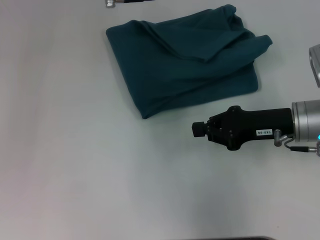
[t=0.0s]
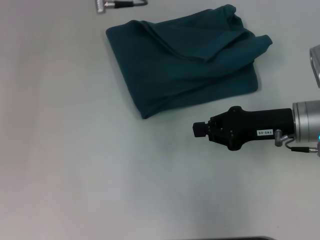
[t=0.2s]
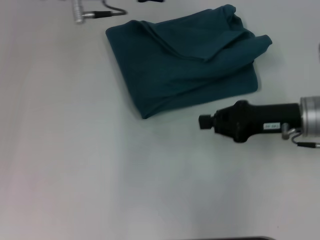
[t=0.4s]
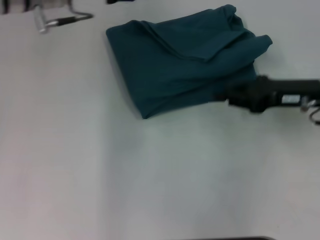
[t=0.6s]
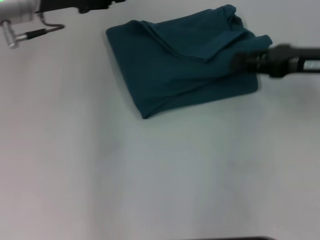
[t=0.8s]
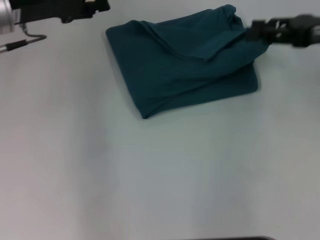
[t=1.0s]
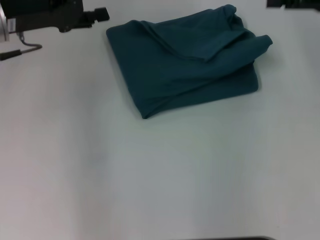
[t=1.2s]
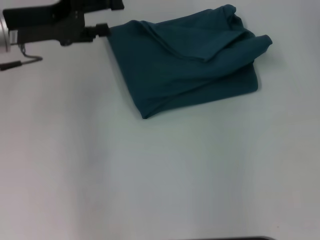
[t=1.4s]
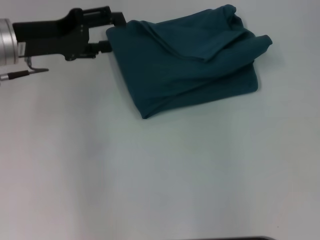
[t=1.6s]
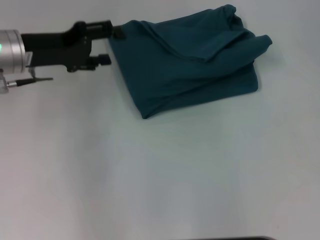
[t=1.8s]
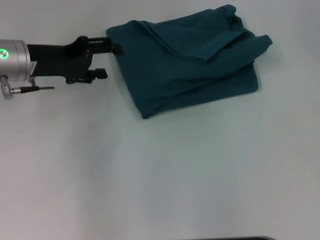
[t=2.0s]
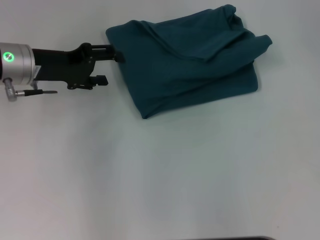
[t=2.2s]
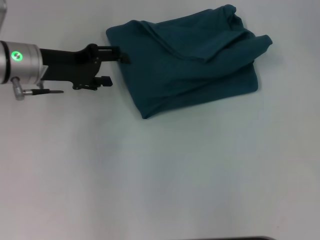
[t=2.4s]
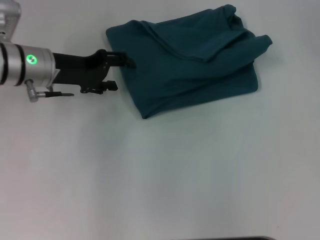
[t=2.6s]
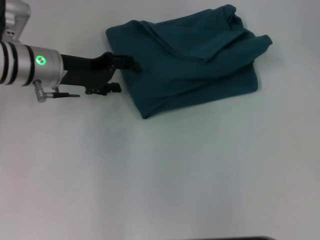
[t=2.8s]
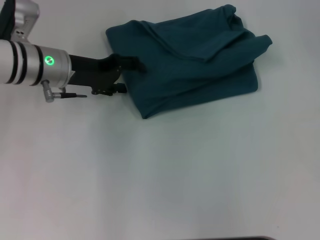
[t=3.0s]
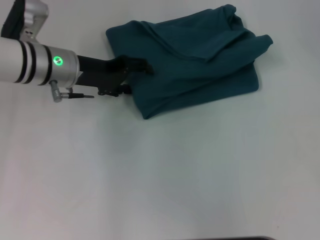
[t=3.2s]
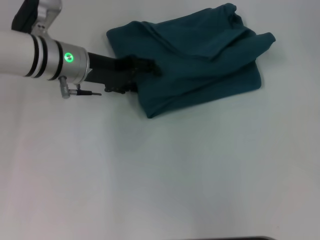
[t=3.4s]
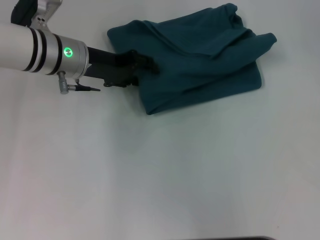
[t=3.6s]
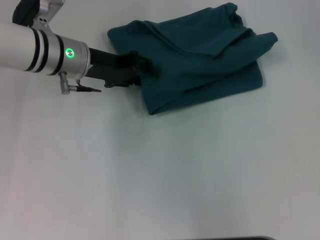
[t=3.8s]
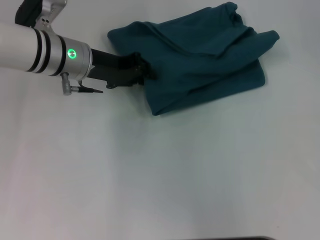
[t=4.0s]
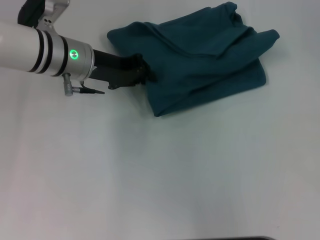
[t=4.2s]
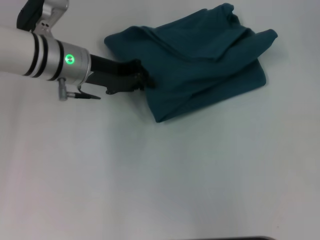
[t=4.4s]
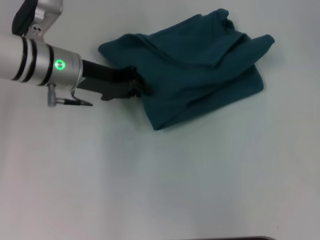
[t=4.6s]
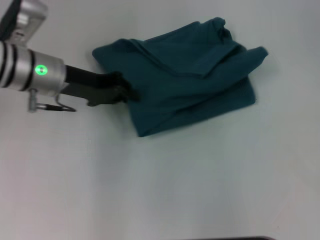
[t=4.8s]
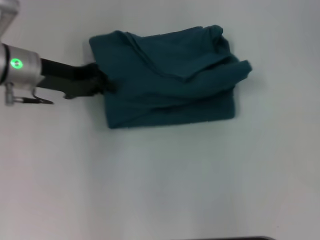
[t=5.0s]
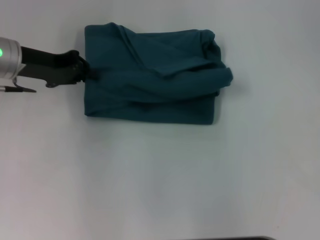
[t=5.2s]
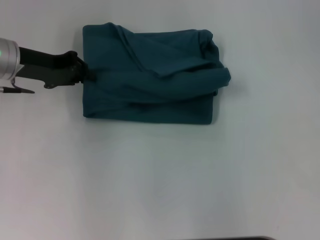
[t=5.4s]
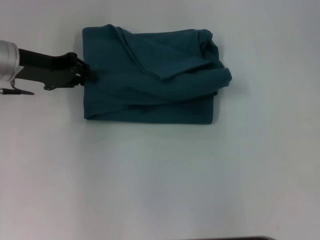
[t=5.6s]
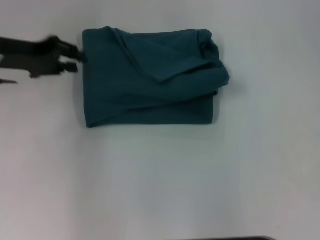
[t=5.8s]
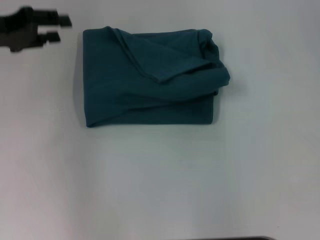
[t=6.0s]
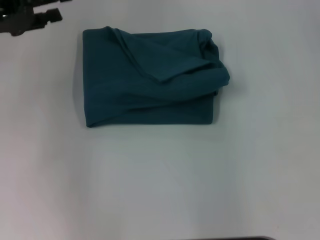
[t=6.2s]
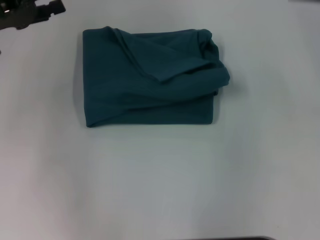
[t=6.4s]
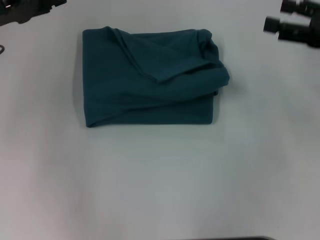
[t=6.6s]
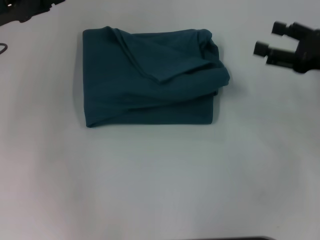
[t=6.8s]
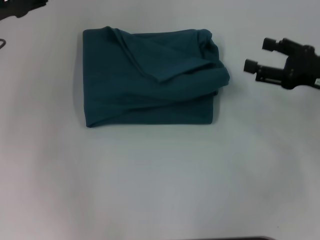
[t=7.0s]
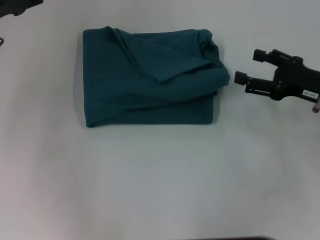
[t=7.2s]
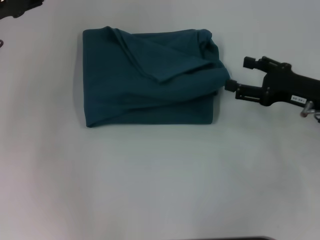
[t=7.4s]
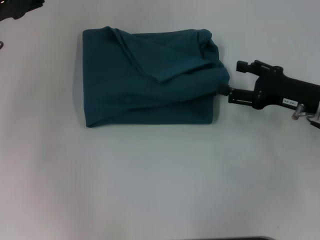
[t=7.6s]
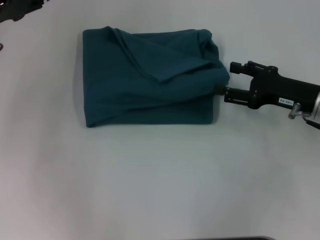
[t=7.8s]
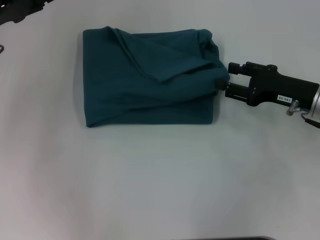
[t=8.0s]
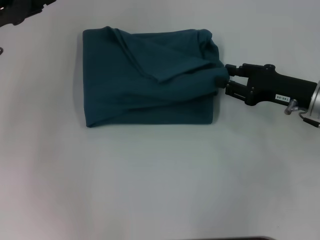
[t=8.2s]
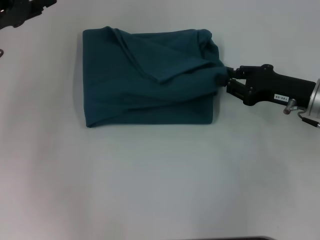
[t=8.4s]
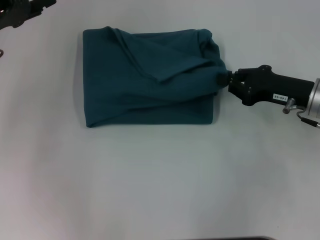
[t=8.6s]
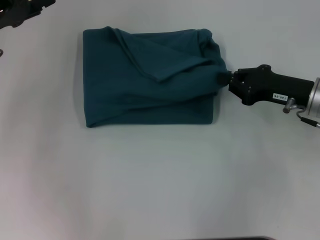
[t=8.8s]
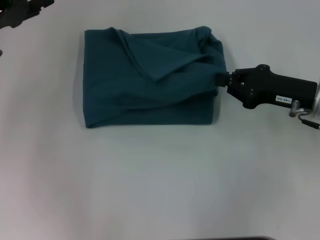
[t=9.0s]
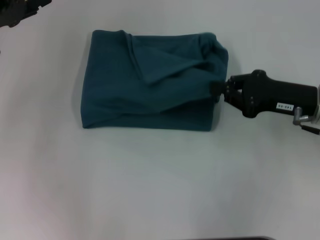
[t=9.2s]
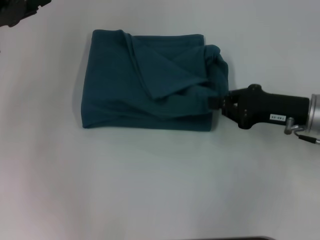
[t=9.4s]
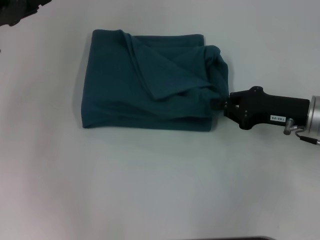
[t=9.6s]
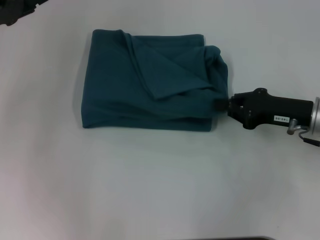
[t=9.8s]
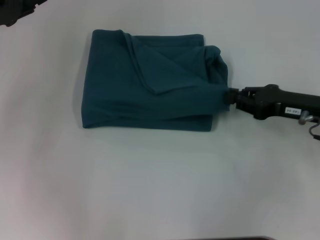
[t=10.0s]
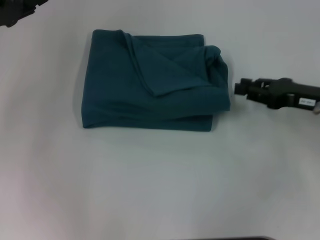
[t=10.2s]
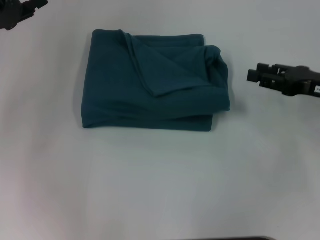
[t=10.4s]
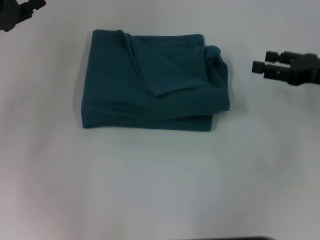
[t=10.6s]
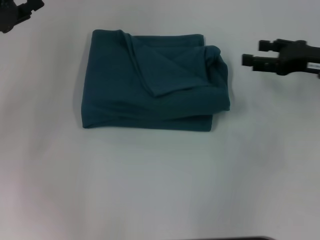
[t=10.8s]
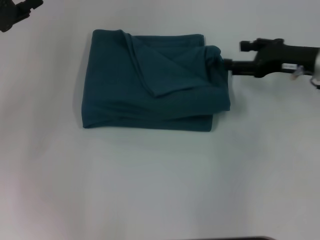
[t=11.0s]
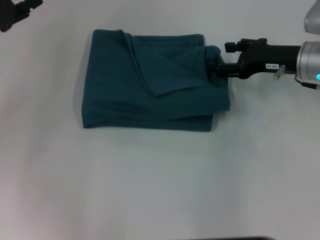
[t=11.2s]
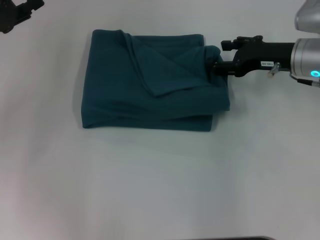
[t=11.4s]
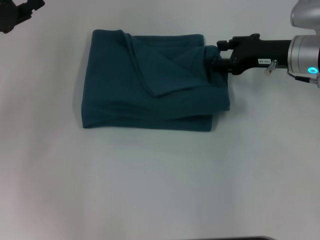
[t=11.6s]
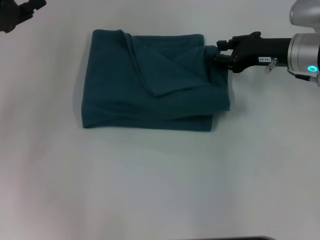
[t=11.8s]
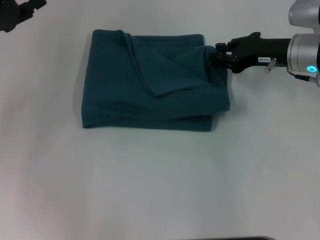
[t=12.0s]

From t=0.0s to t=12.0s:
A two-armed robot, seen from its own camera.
From t=0.0s to t=1.6s: The right gripper goes approximately 25 cm upward, to the right and forward, and opens, while the left gripper heads to the left and downward, covering approximately 15 cm.
From t=1.6s to t=3.0s: The left gripper moves downward and to the right, about 5 cm.
From t=3.0s to t=4.4s: The left gripper closes.
From t=4.4s to t=6.0s: The left gripper is displaced to the left and upward by approximately 15 cm.
From t=6.0s to t=7.6s: The right gripper goes approximately 25 cm downward and backward, while the left gripper opens.
From t=7.6s to t=9.0s: The right gripper closes up.
From t=9.0s to t=10.4s: The right gripper heads to the right, covering about 5 cm, and opens its fingers.
From t=10.4s to t=12.0s: The right gripper travels forward and to the left by roughly 10 cm.

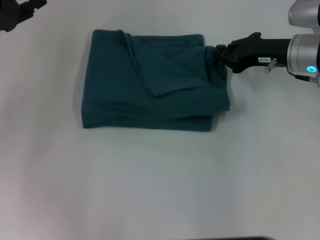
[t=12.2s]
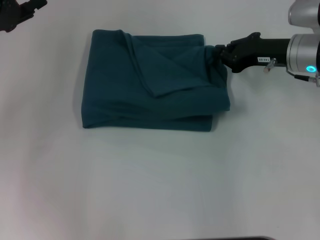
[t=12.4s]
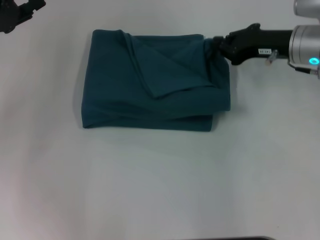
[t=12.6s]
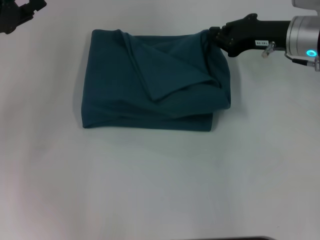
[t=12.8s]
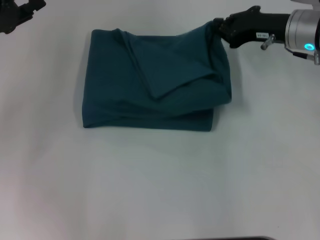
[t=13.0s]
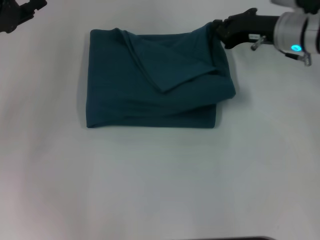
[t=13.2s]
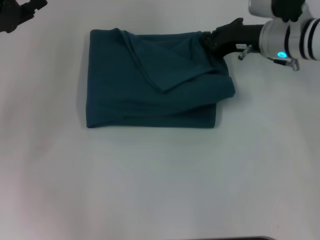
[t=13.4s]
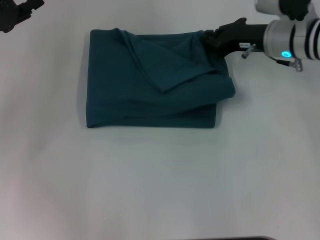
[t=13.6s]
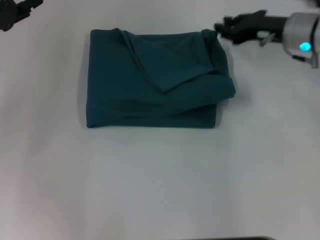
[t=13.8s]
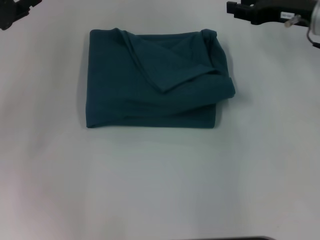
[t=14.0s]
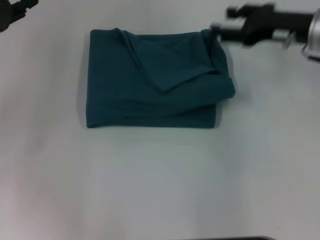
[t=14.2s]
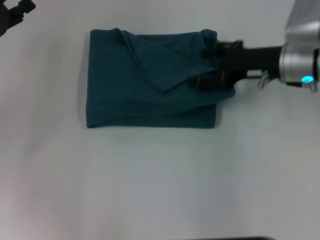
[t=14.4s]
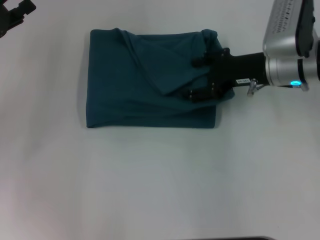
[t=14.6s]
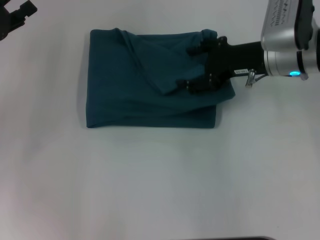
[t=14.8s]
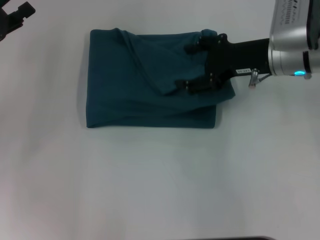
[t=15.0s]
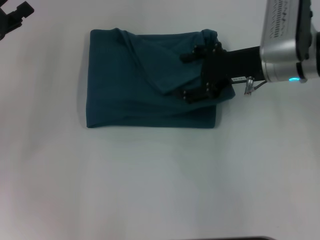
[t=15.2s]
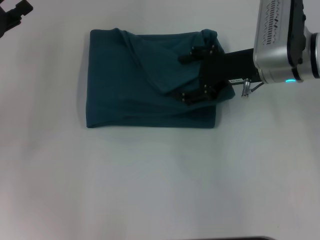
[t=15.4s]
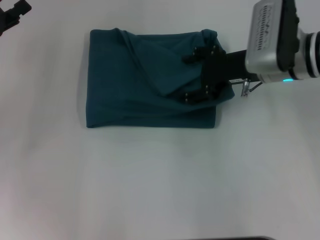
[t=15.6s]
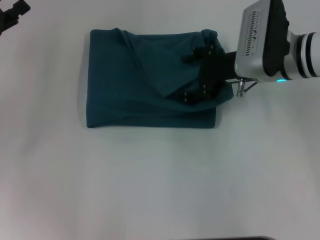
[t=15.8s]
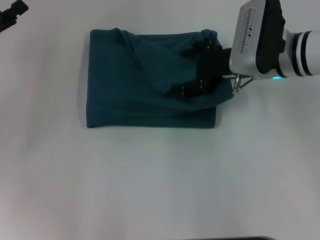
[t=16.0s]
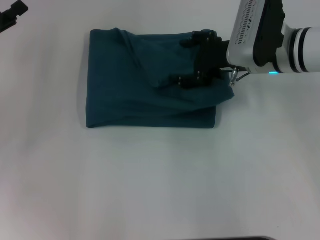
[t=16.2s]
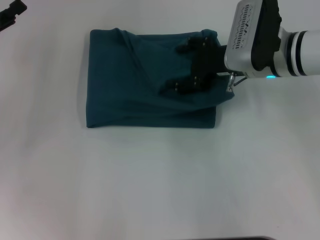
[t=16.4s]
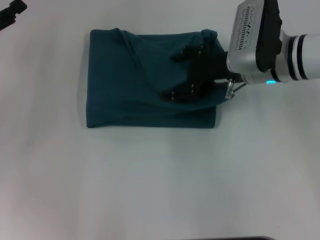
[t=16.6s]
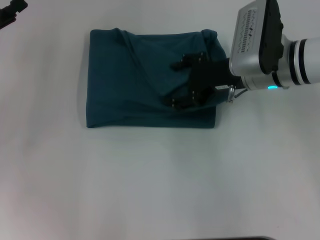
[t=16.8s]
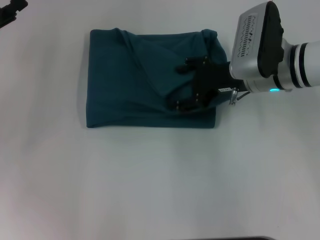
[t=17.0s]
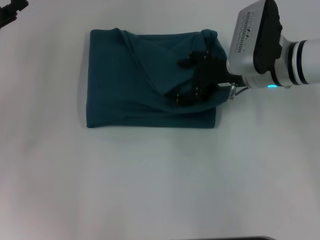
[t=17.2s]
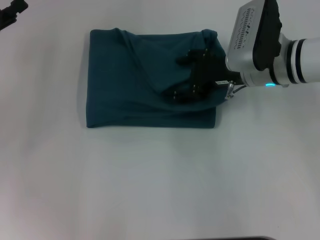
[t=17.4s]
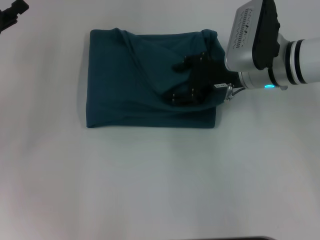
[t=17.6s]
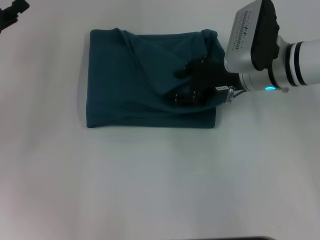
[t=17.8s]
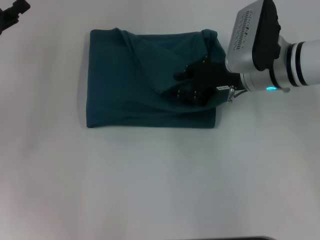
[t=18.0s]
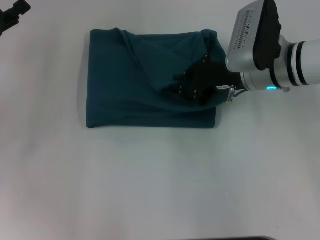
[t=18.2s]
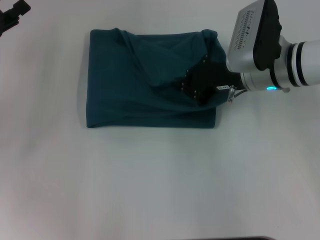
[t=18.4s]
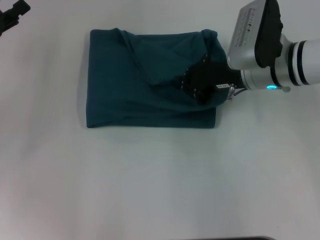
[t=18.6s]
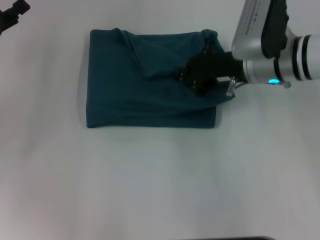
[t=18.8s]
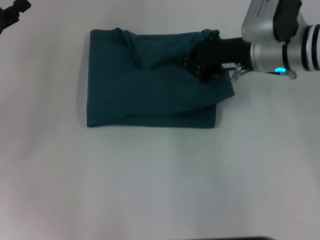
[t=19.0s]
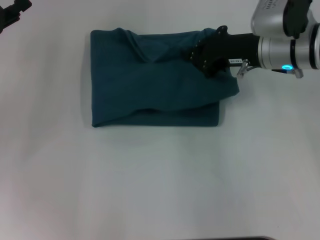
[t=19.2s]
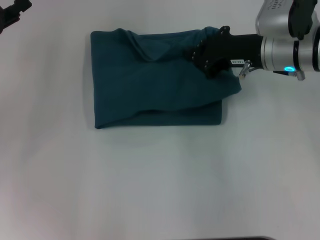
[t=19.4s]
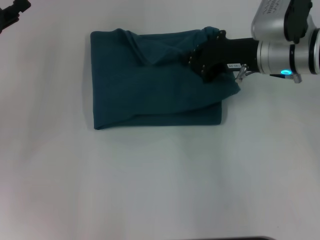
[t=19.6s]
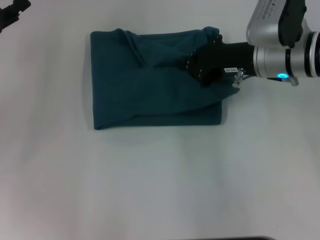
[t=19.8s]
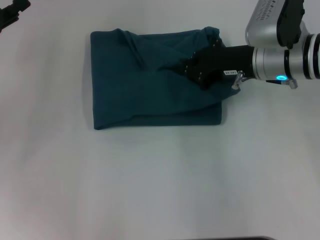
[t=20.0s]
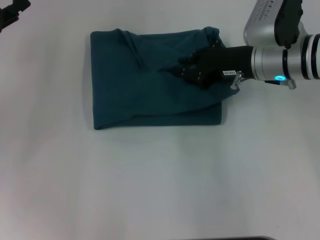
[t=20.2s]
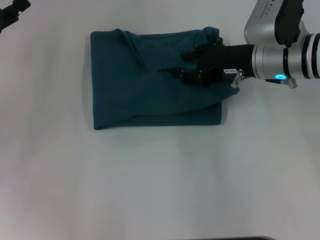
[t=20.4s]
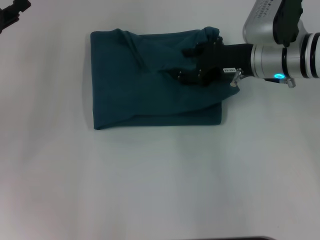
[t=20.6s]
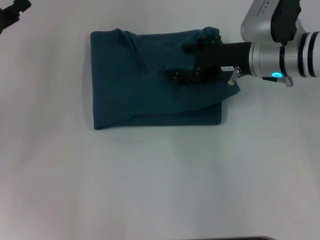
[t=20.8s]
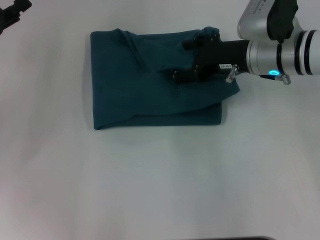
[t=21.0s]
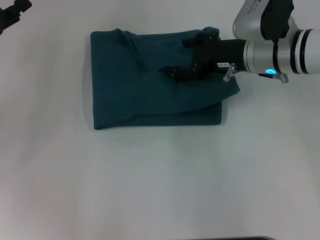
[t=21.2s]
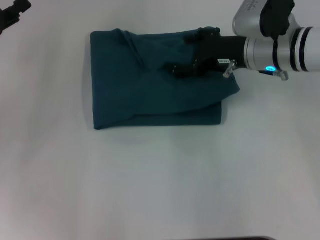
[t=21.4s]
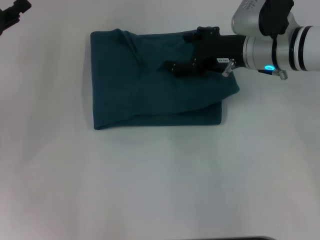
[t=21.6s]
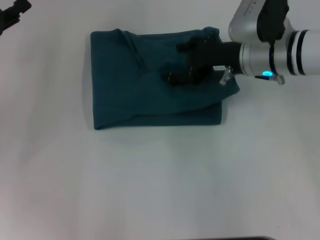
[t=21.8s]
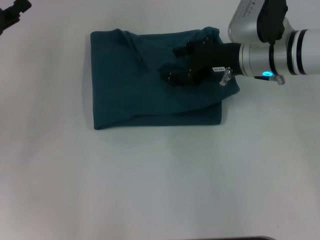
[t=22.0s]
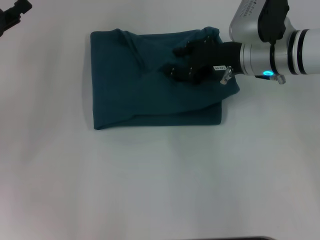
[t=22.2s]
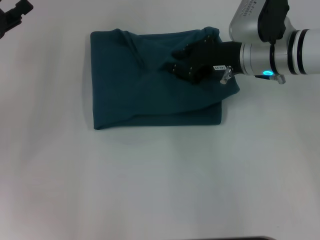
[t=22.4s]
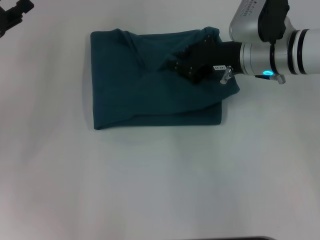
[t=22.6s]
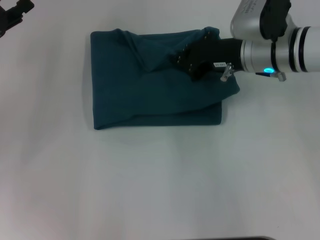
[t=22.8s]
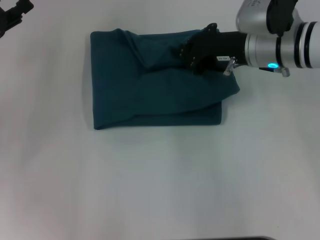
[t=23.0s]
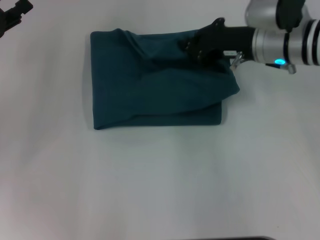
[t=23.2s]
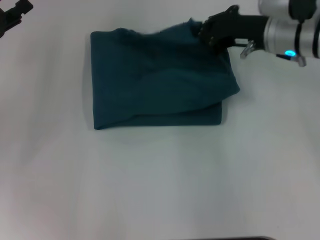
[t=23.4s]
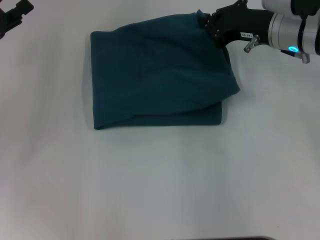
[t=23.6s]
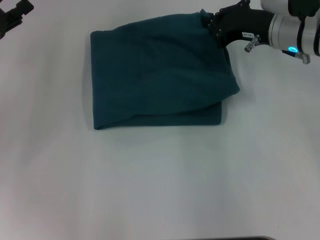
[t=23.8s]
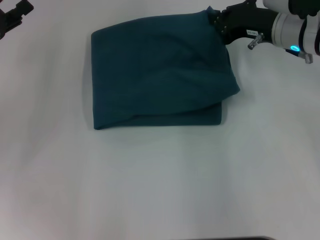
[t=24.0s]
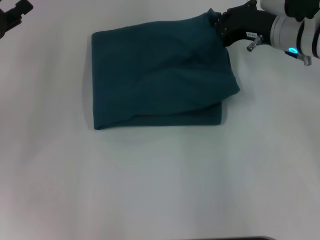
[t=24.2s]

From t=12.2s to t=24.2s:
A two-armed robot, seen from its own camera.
From t=12.2s to t=13.8s: The grippers stay close to where they were, moving slightly.
From t=13.8s to t=15.2s: The right gripper shifts by roughly 5 cm, and opens.
From t=15.2s to t=16.6s: There are only small adjustments of the grippers.
From t=16.6s to t=18.2s: The right gripper closes up.
From t=18.2s to t=19.8s: The right gripper closes up.
From t=19.8s to t=21.2s: The right gripper opens its fingers.
From t=21.2s to t=22.6s: The right gripper closes up.
From t=22.6s to t=24.2s: The right gripper closes up.
